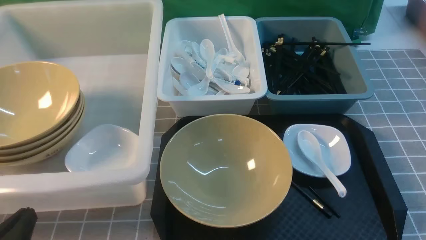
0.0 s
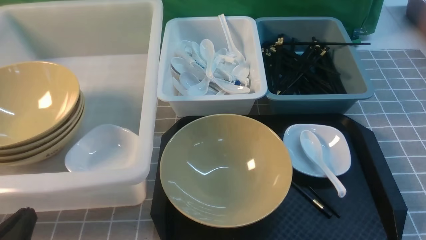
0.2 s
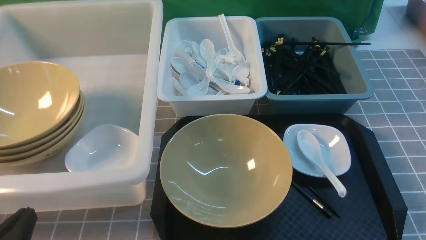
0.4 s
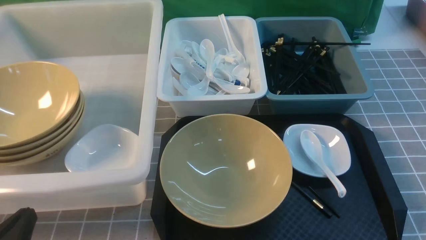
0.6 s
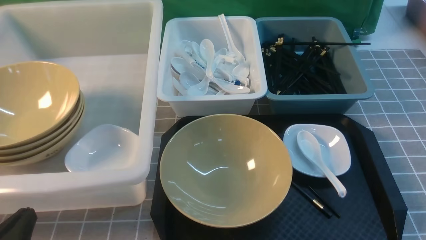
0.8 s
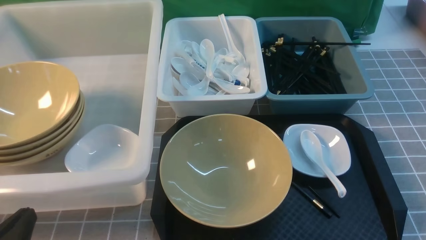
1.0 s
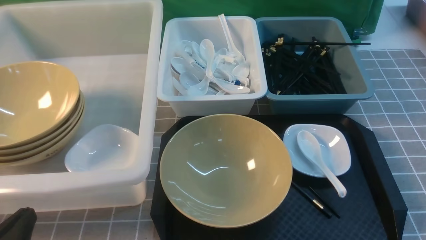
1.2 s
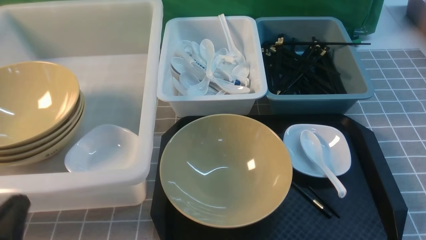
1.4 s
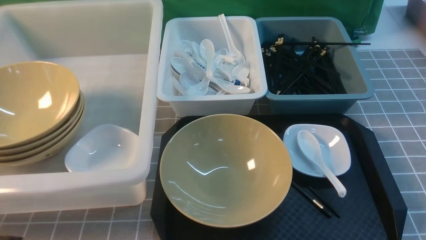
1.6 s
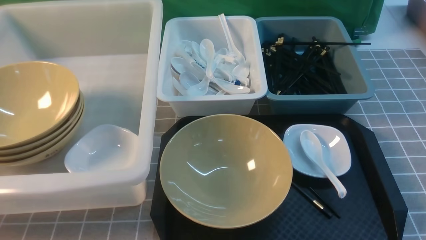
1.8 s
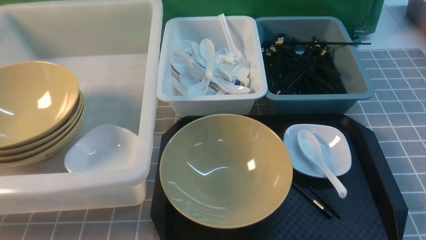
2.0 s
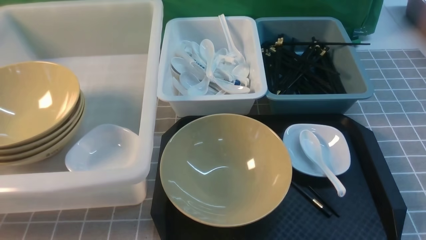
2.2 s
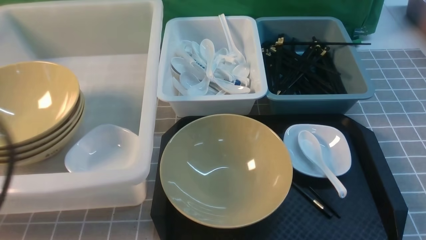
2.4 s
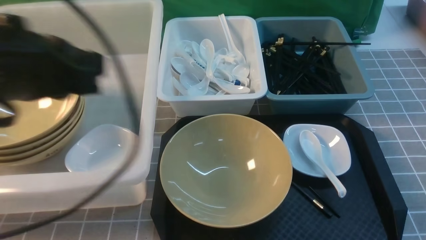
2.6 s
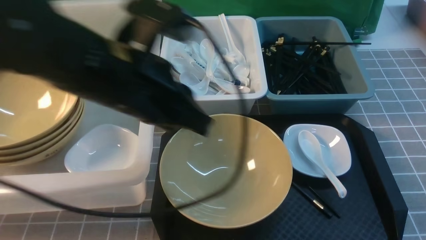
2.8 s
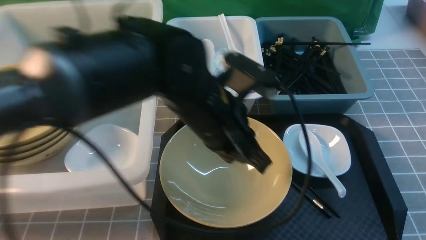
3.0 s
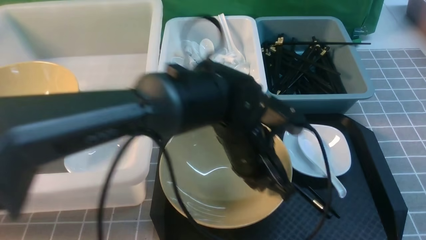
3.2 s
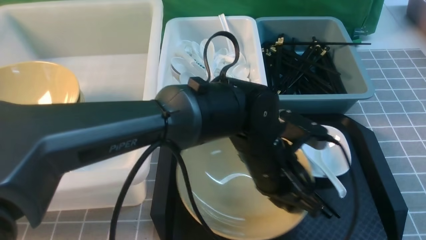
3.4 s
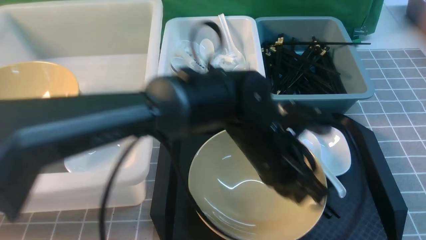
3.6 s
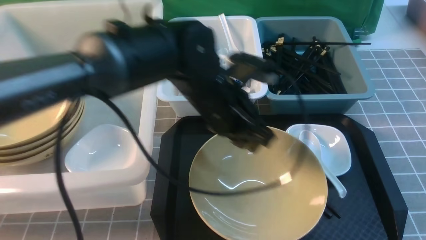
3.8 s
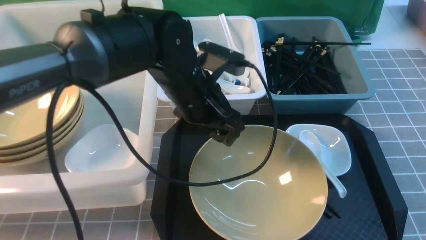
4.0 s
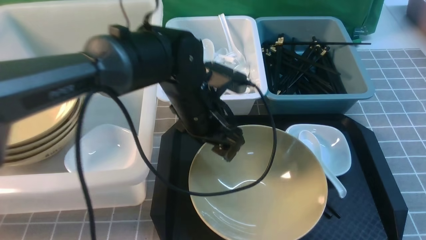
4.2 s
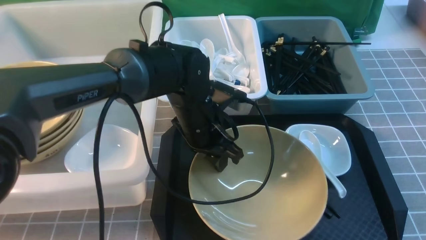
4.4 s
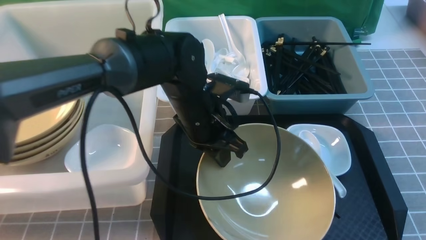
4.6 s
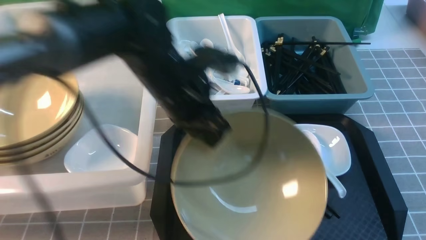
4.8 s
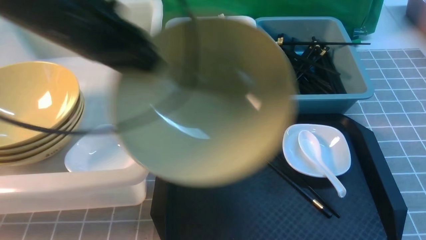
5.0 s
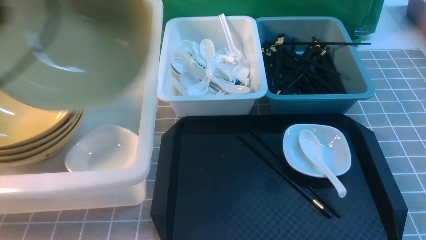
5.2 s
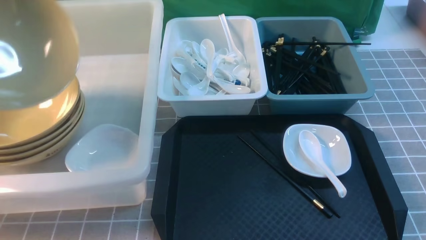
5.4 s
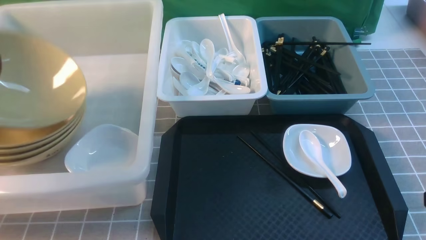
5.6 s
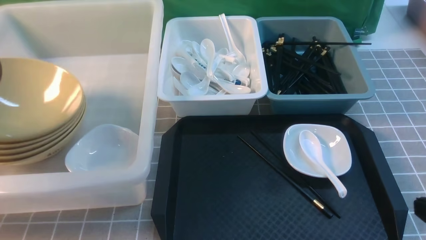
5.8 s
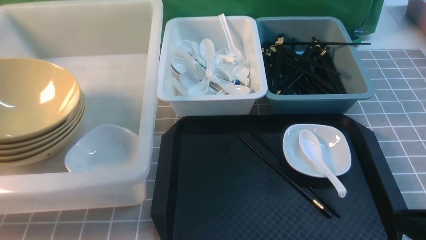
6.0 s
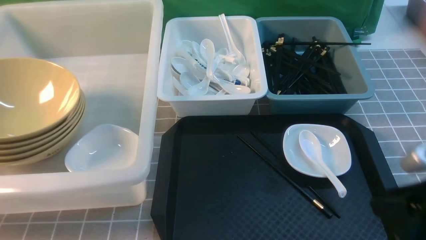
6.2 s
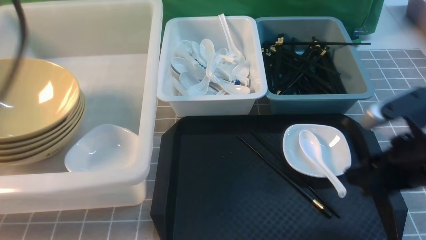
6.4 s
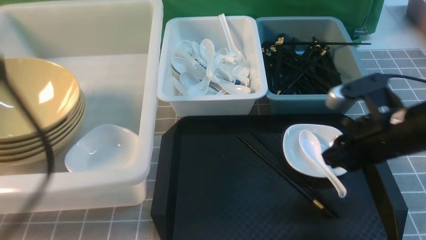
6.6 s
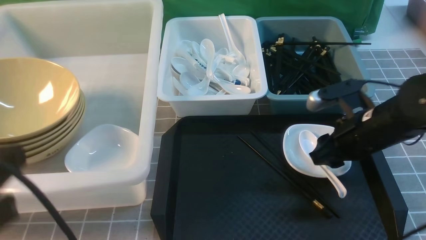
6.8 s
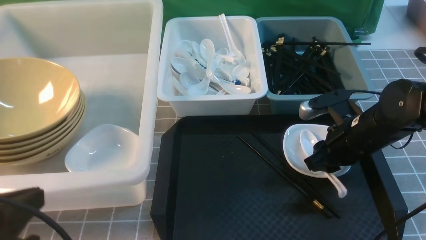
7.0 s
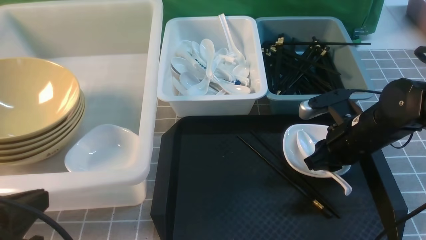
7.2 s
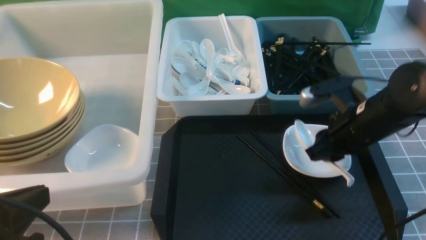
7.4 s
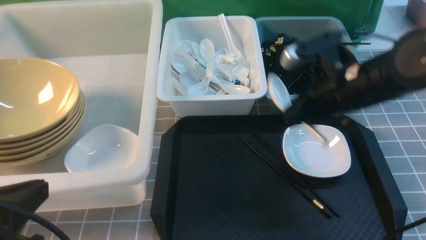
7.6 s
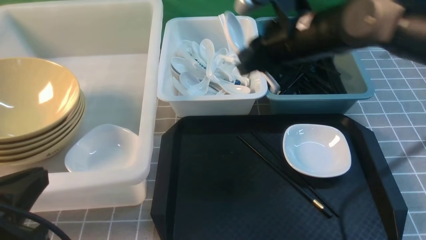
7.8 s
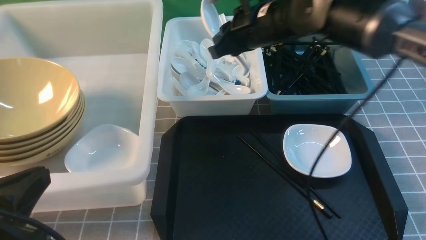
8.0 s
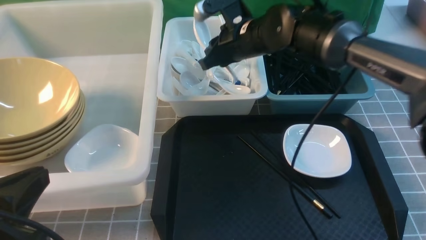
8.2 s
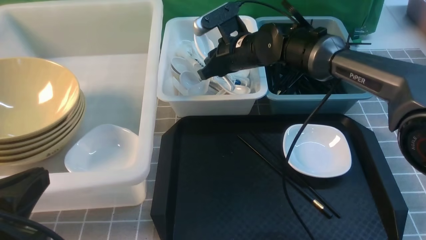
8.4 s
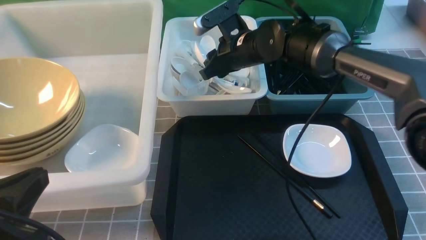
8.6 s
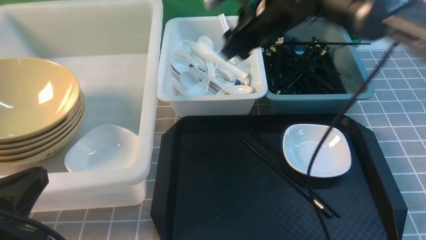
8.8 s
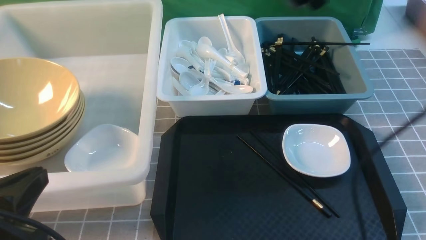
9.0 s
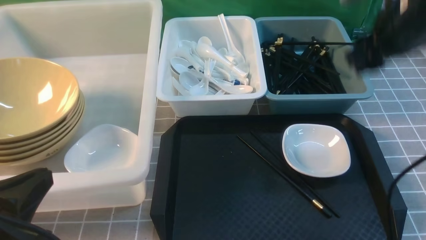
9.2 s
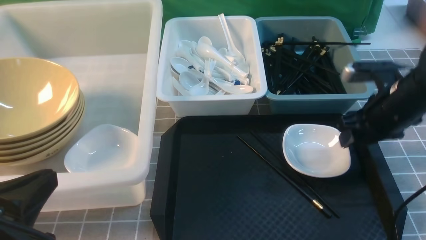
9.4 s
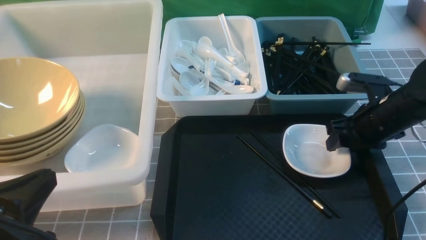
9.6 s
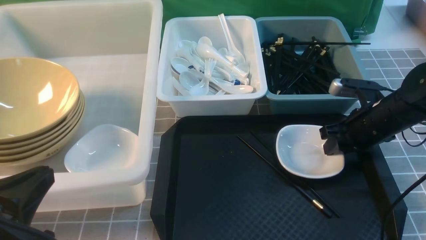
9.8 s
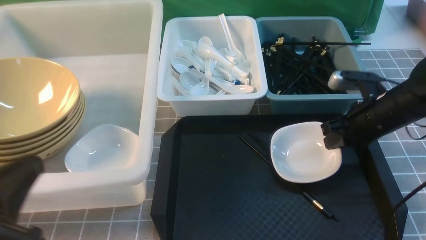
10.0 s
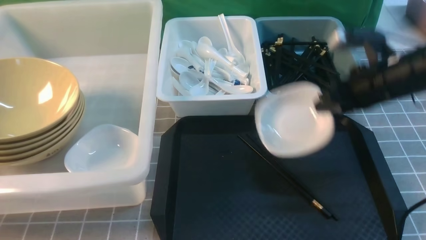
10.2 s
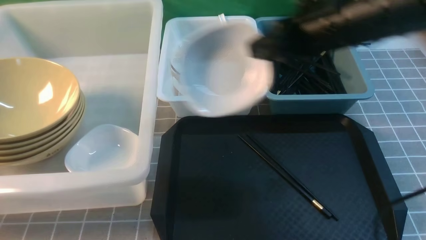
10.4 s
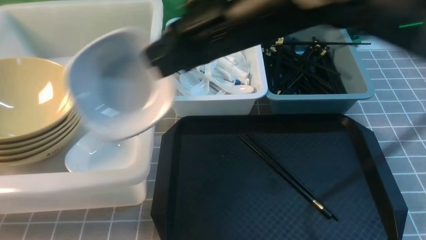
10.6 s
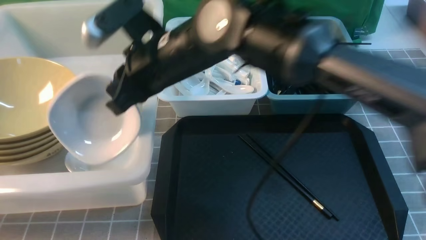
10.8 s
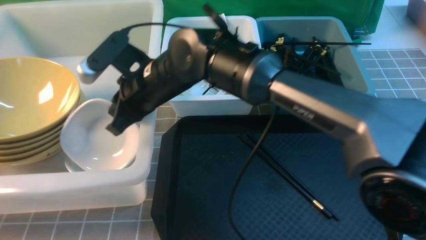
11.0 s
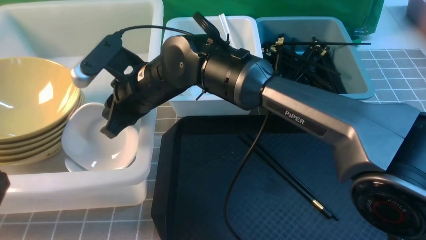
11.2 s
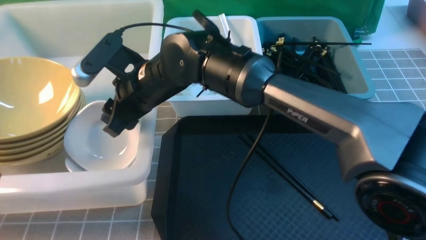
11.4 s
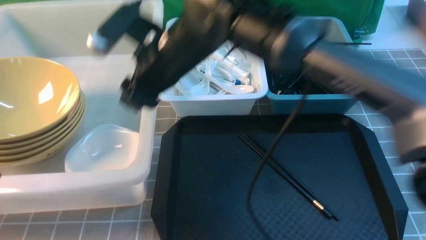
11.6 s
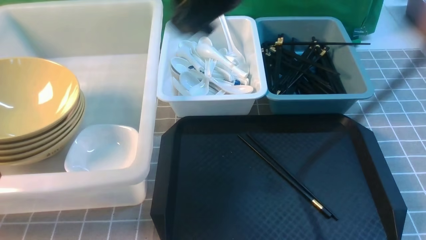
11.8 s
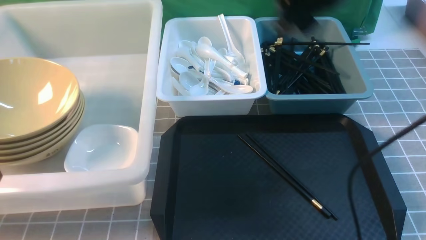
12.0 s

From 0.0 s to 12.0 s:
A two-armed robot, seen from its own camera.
Task of the whole recording: on grey table put chopsticks spoon bowls plates into blue grey white boxes.
Step, from 0.0 s to 4.8 s: use the left arm to grab the yellow noodle bowl on the left.
Step, from 5.0 s to 6.2 s: use the left arm to put the noodle bowl into the large storage box on the left.
Step, from 6.4 s to 7.6 s: use the right arm to grab the soup spoon in the middle.
Step, from 7.8 s to 8.8 s: use the right arm to put the soup spoon into the small storage box in the middle.
Step, from 9.0 s to 10.0 s: use the right arm to grab the plate.
Step, from 10.2 s to 11.4 s: use the right arm to put the plate into the large storage box on the left.
From 0.0 s to 1.6 s: The left gripper shifts some 5 cm upward.
From 1.6 s to 3.0 s: The right gripper moves roughly 10 cm upward and comes back, and closes, while the left gripper shifts approximately 30 cm to the right and forward.
From 3.0 s to 4.4 s: The left gripper travels forward and downward by roughly 10 cm, reaches approximately 5 cm to the right, then returns, and opens its fingers.
From 4.4 s to 6.0 s: The left gripper moves to the left and upward, roughly 40 cm, and opens.
From 6.0 s to 7.6 s: The left gripper is displaced backward, to the right and downward by approximately 25 cm, and closes its fingers. The right gripper heads forward and to the left, covering some 25 cm, and opens and closes again.
From 7.6 s to 9.0 s: The right gripper is displaced upward by some 10 cm, and opens up.
From 9.0 s to 10.4 s: The right gripper travels to the left and backward by about 10 cm, travels downward and back again, roughly 20 cm each way, and closes its fingers; the left gripper heads backward, covering approximately 5 cm.
From 10.4 s to 12.0 s: The right gripper reaches roughly 20 cm to the left, then returns, and opens its fingers.

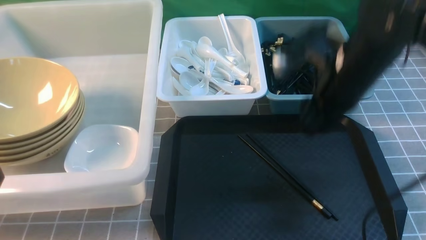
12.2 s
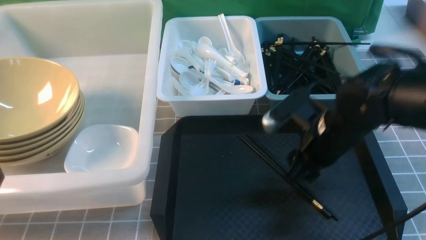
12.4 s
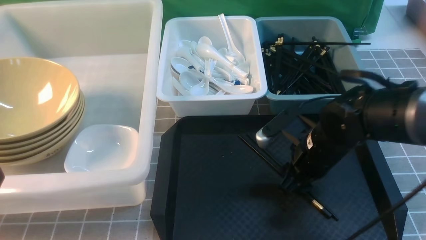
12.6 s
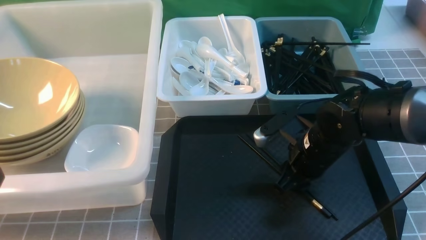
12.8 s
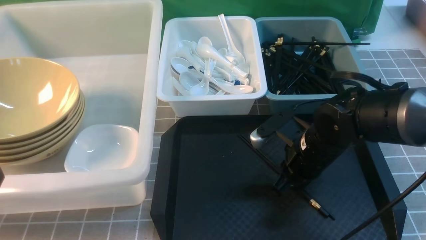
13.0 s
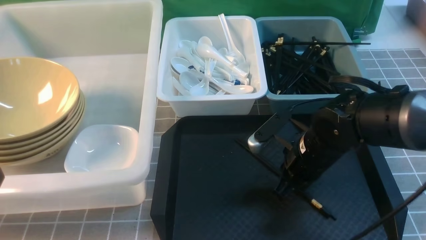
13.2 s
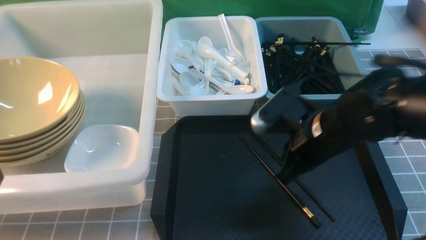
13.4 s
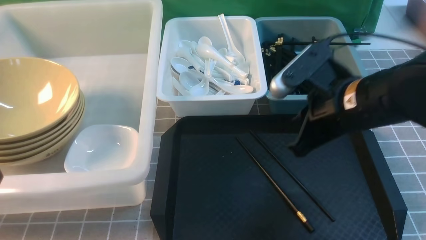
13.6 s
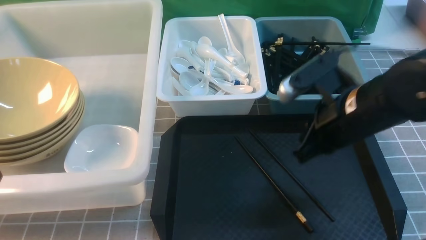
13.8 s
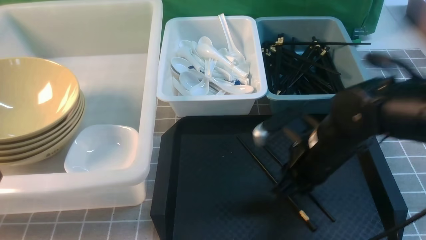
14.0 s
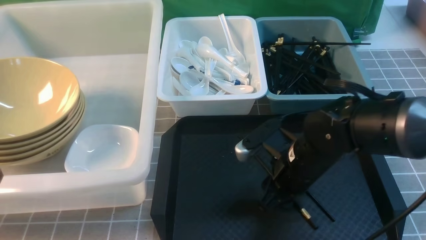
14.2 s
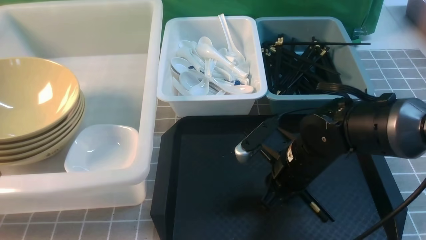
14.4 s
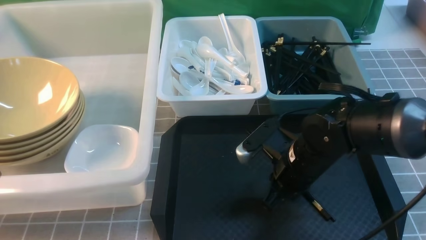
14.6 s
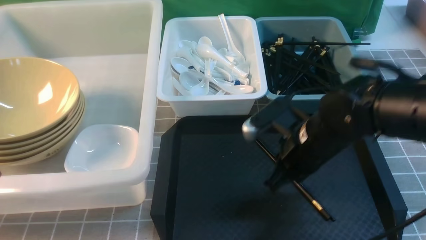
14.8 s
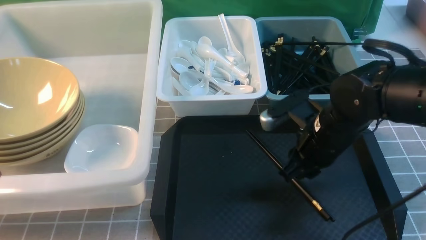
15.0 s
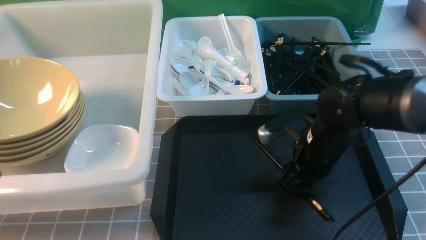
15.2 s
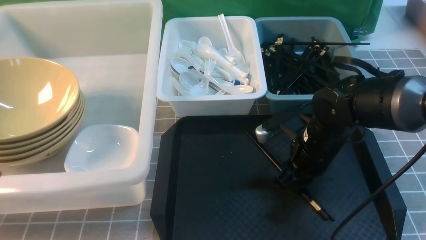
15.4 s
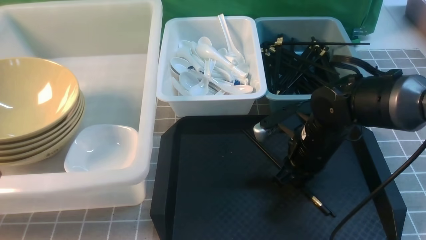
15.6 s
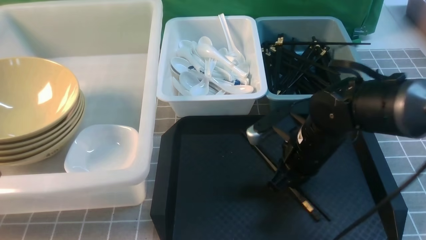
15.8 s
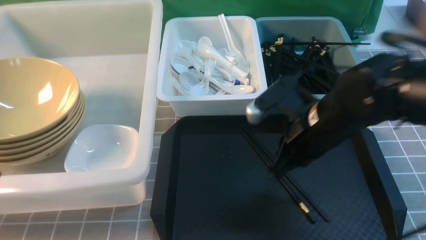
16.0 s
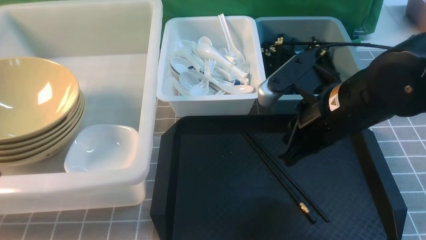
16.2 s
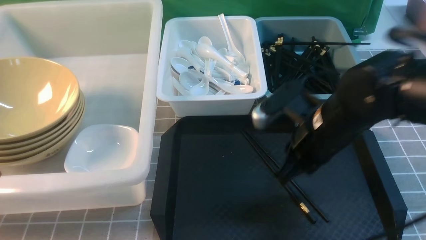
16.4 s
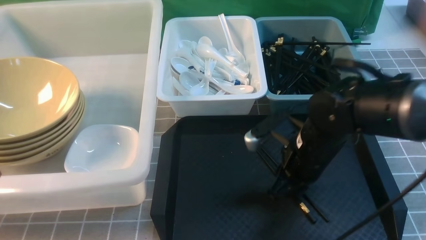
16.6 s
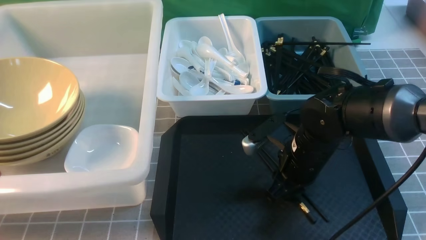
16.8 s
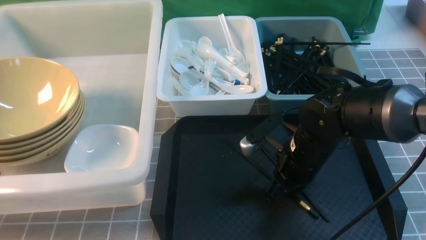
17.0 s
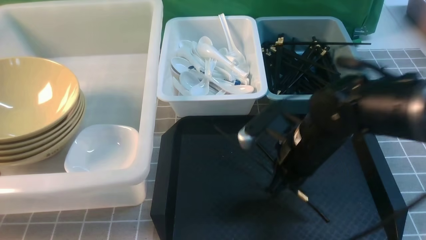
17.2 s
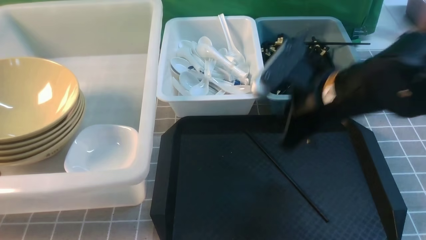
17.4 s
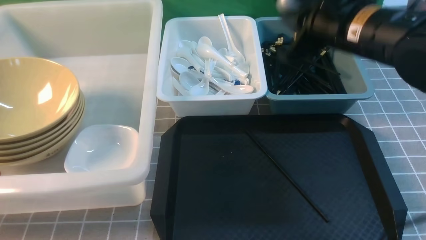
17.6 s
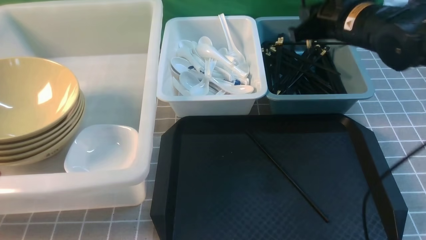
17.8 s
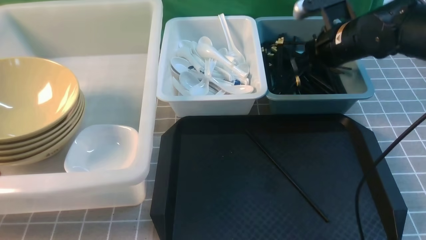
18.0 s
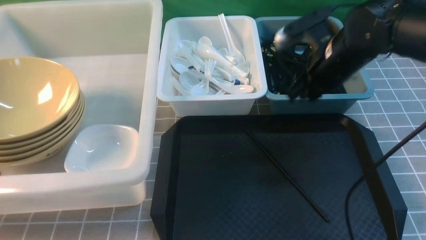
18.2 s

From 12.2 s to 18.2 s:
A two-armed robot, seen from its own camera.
Task of the whole recording: on grey table put chopsticks spoon bowls plates into blue grey white boxes.
Step, from 12.2 s to 17.0 s: use the right arm to grab a chopstick.
Step, from 17.4 s to 17.8 s: use the right arm to put a chopstick into the small storage box on the right.
From 12.2 s to 13.8 s: The right gripper travels downward and back again, approximately 10 cm each way, and closes.
From 13.8 s to 15.2 s: The right gripper goes about 5 cm downward, and opens its fingers.
From 15.2 s to 16.6 s: The right gripper travels upward and back again, about 10 cm each way.
From 16.6 s to 18.2 s: The right gripper heads forward and upward, covering roughly 10 cm.
